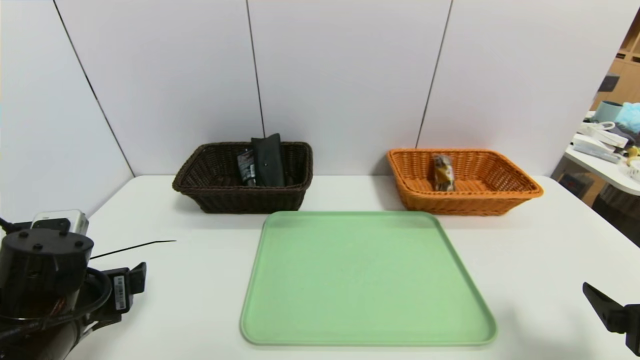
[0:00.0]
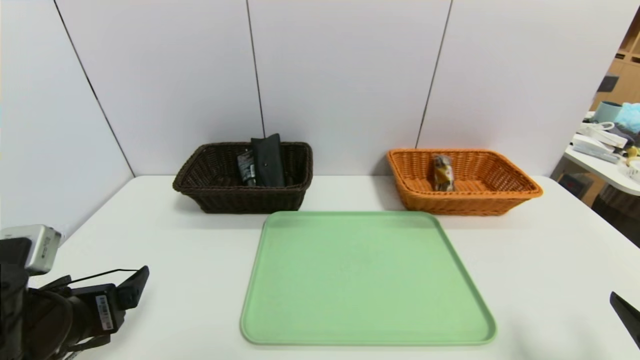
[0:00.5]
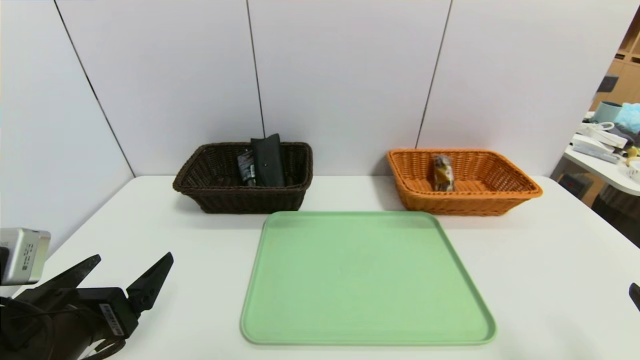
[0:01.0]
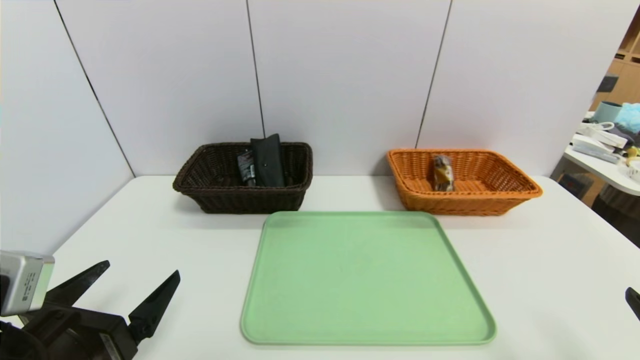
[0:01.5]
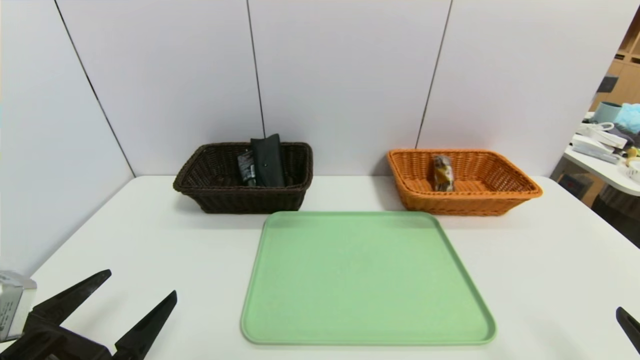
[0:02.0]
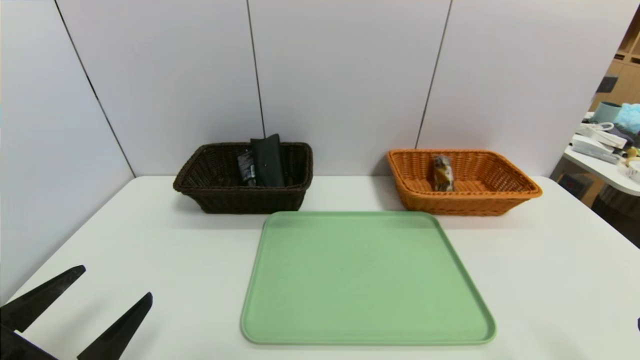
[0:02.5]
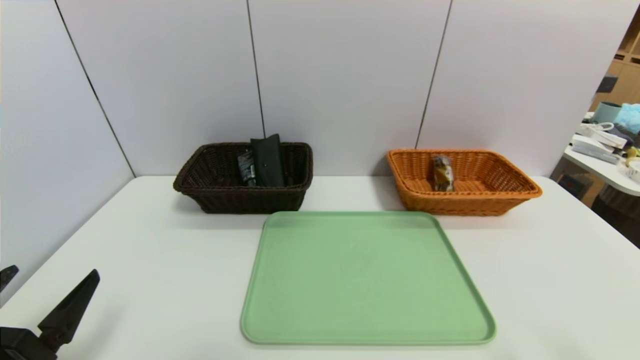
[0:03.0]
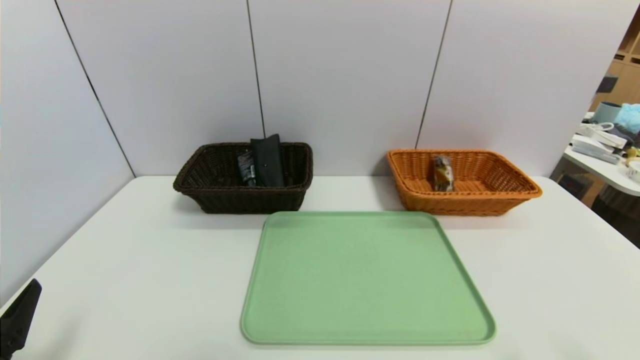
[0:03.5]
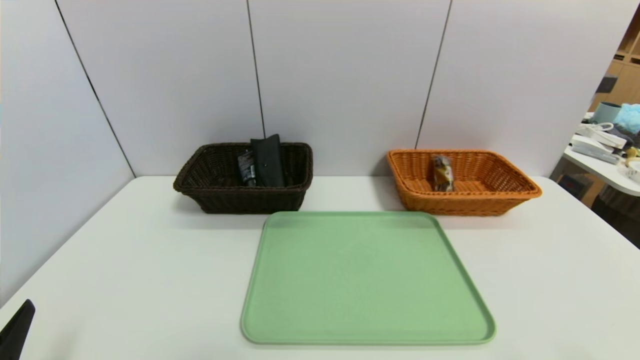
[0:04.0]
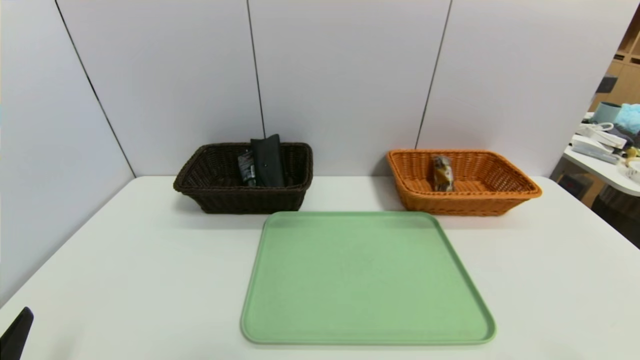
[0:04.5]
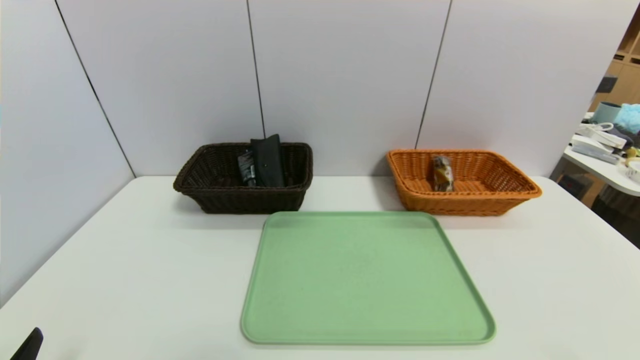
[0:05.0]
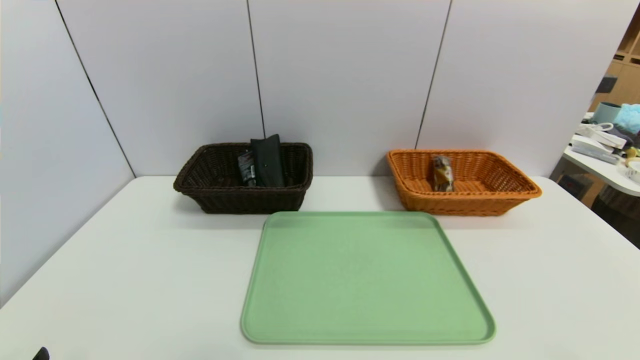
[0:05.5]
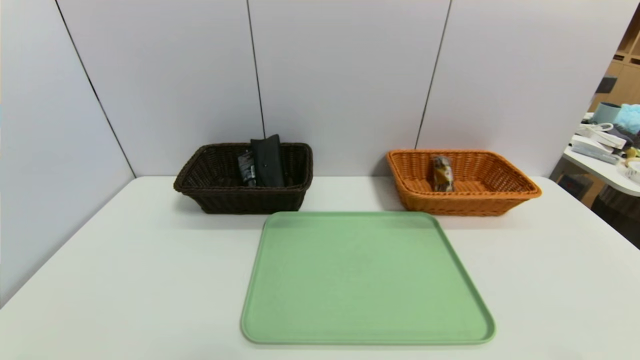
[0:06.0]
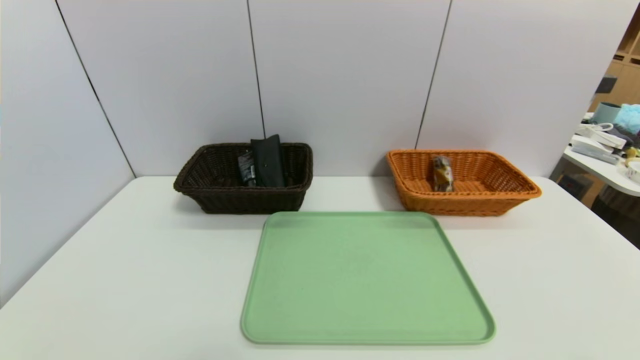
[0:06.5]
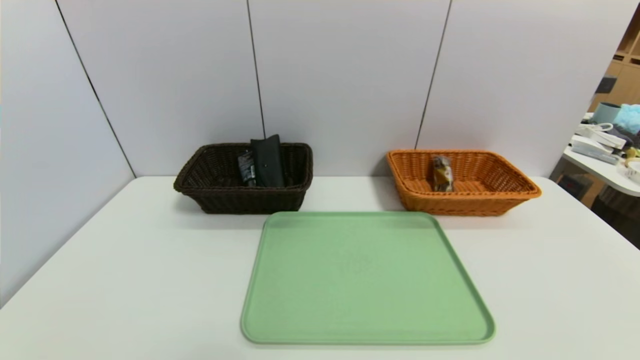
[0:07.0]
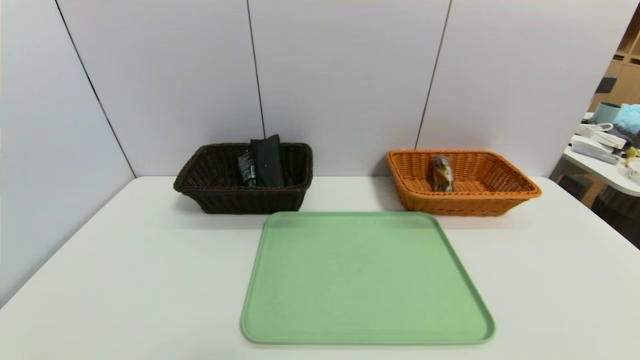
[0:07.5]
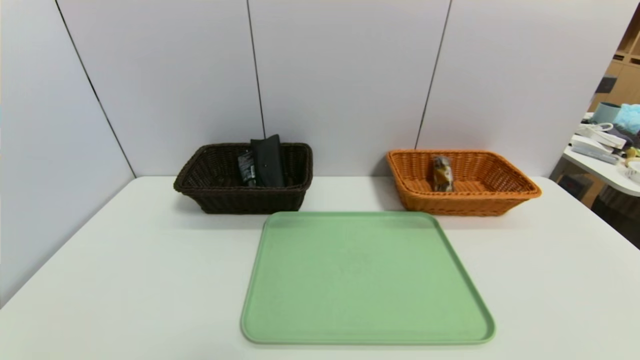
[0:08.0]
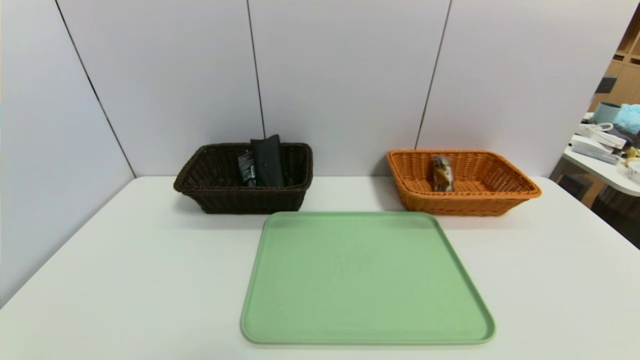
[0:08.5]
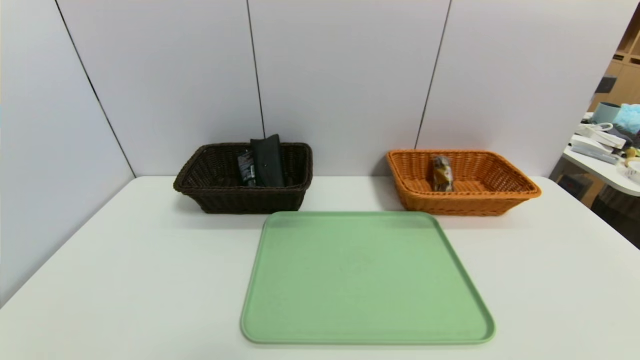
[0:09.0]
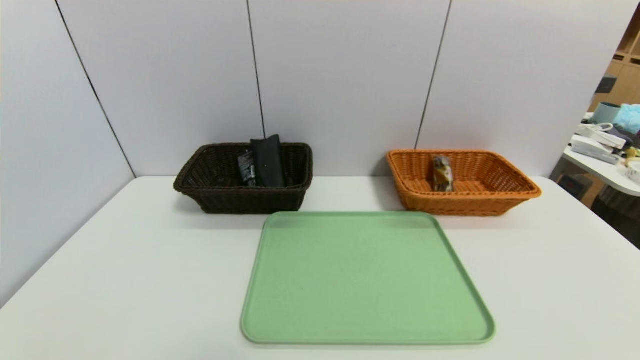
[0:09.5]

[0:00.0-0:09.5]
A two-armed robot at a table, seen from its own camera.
Task of the whole recording: place the food in the right basket with the right gripper, and place the non food items in the left basket with the left gripper.
0:00.0 to 0:02.0: Both grippers move backward, about 5 cm.
0:02.0 to 0:04.0: The left gripper is displaced to the left and backward by about 10 cm.

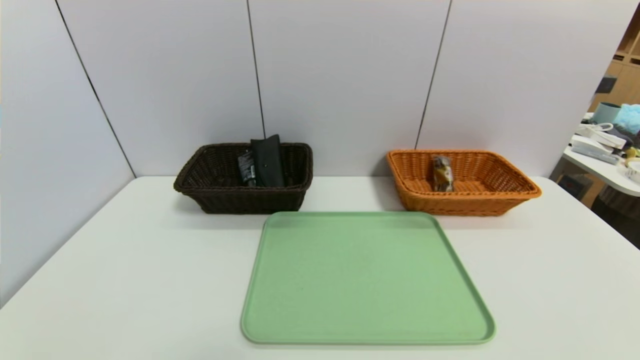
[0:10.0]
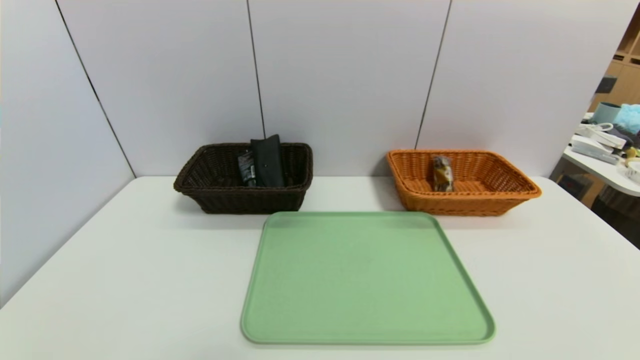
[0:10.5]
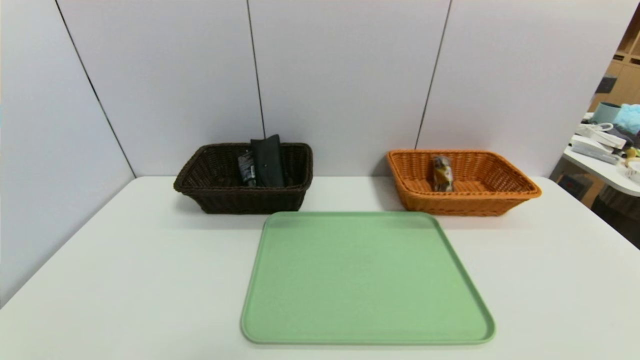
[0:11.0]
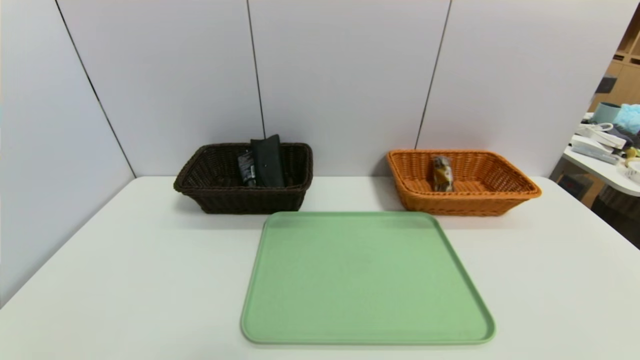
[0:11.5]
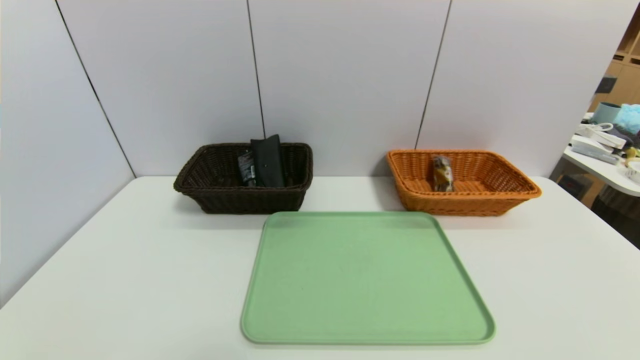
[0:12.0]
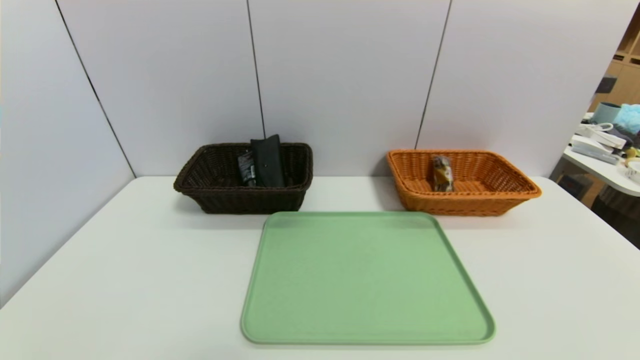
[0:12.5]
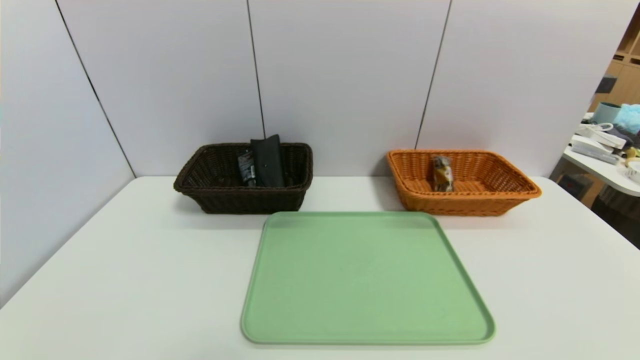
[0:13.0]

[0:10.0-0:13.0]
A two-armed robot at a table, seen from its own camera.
Task of the whole recording: place the food in the right basket with the right gripper, and place the non food items in the left basket with the left gripper.
0:10.0 to 0:13.0: The two grippers keep their place.
